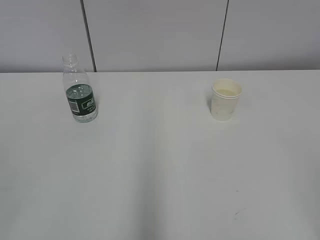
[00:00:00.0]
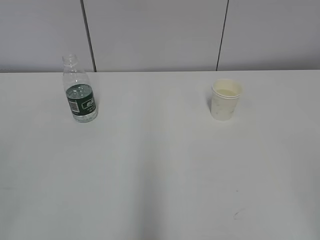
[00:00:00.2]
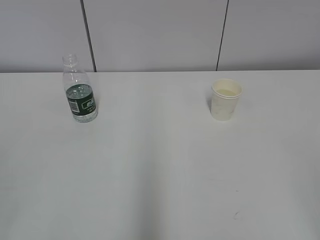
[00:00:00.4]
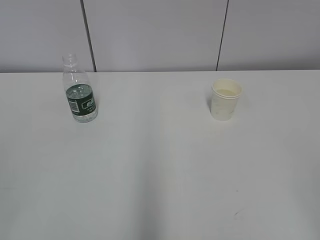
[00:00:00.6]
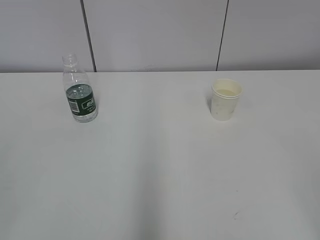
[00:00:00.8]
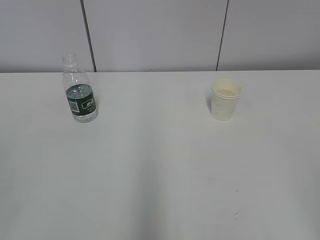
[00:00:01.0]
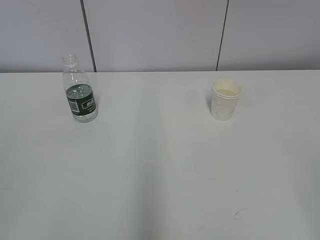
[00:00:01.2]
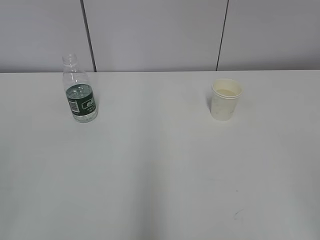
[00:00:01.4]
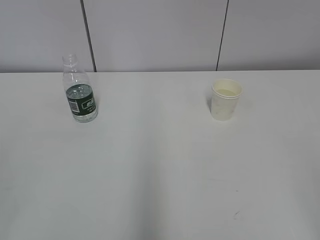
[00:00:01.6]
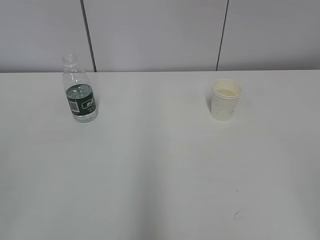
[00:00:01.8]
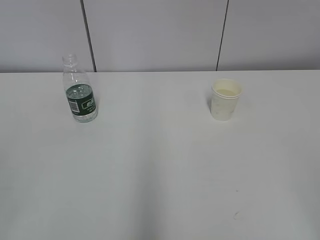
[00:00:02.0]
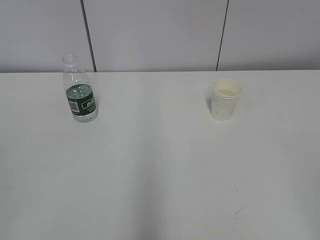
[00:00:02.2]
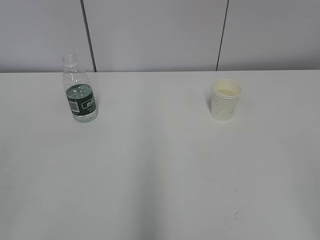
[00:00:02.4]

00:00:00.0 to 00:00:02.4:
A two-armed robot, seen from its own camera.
00:00:00.0 to 00:00:02.4: The two grippers keep their place.
